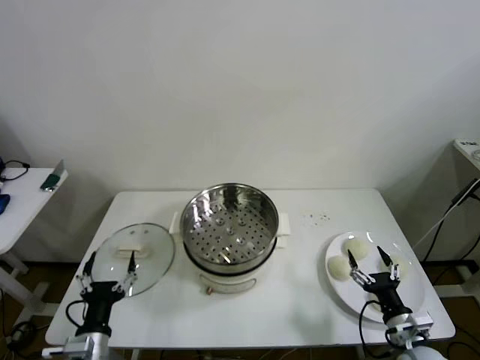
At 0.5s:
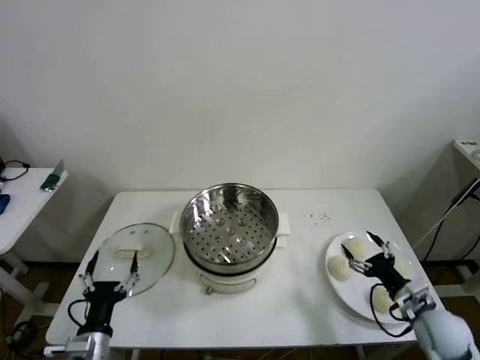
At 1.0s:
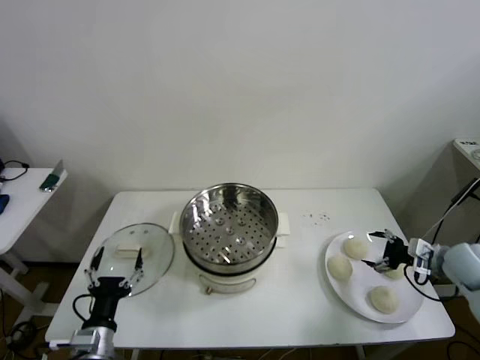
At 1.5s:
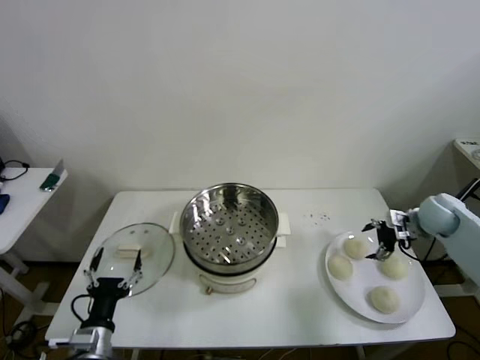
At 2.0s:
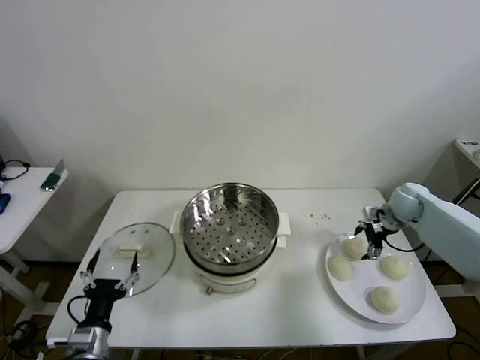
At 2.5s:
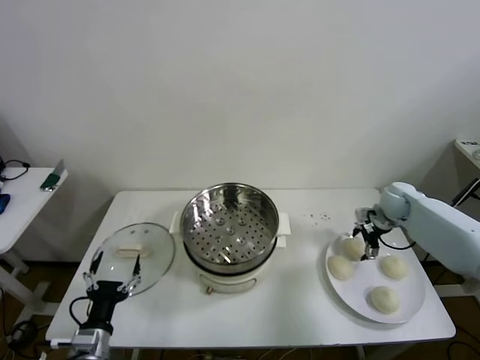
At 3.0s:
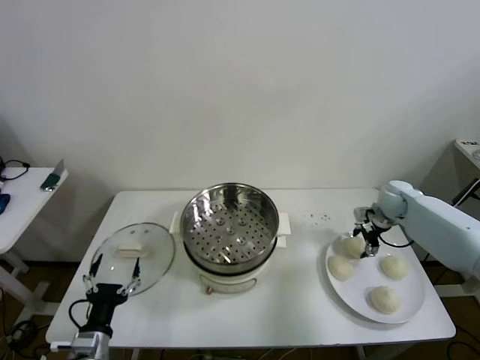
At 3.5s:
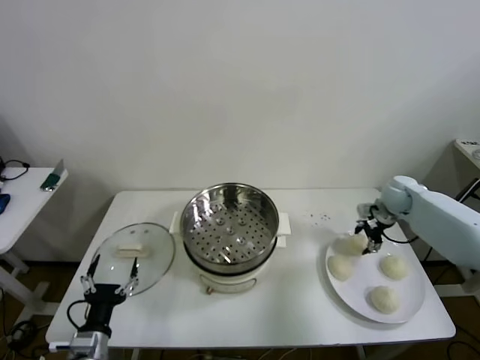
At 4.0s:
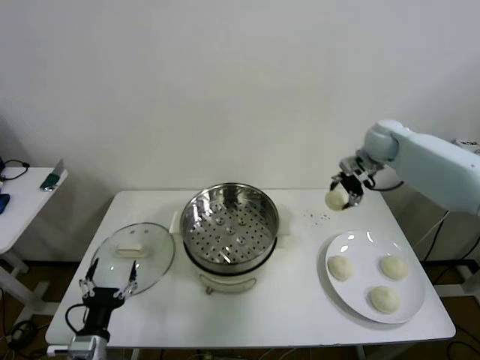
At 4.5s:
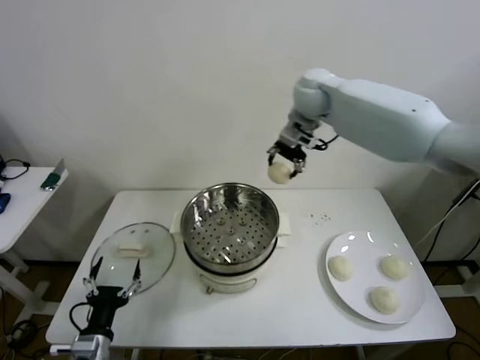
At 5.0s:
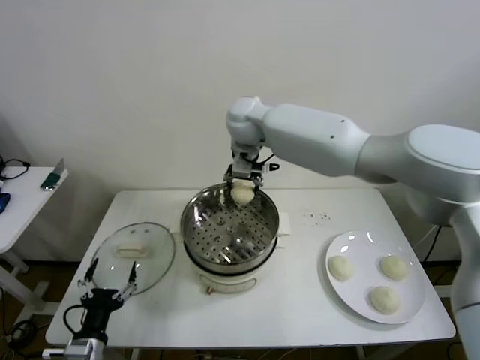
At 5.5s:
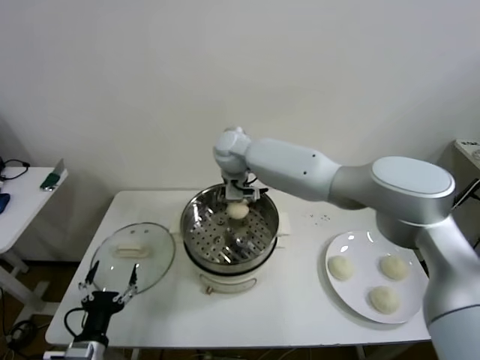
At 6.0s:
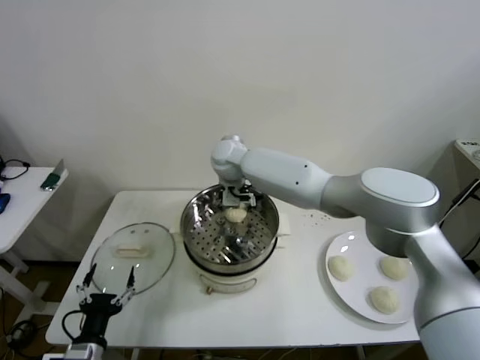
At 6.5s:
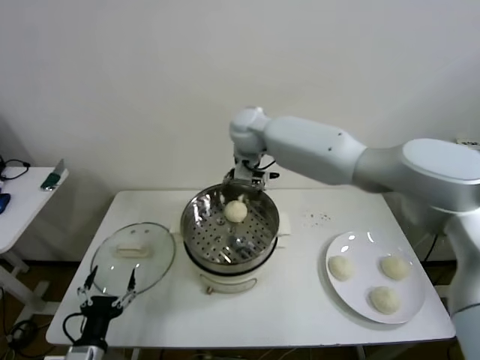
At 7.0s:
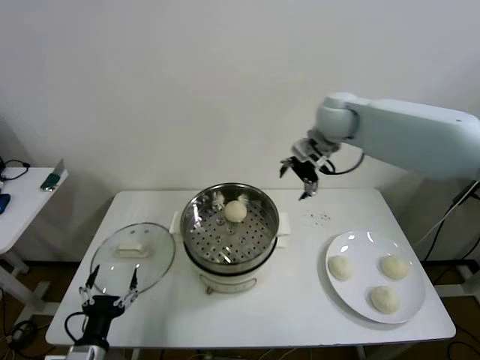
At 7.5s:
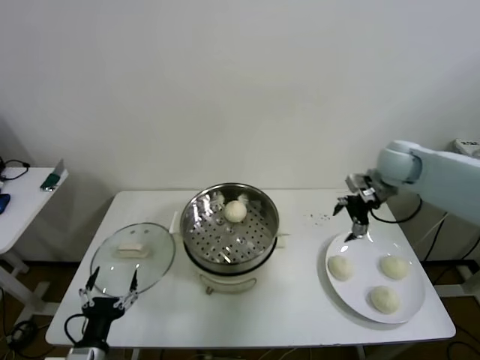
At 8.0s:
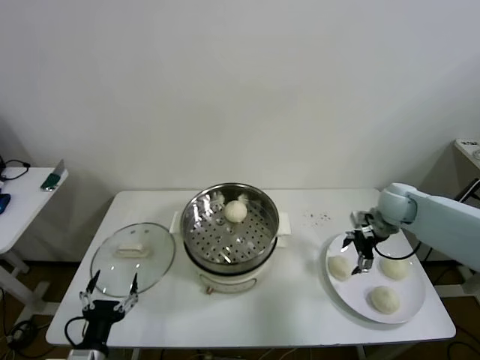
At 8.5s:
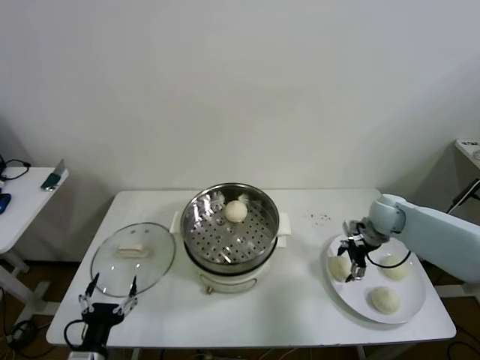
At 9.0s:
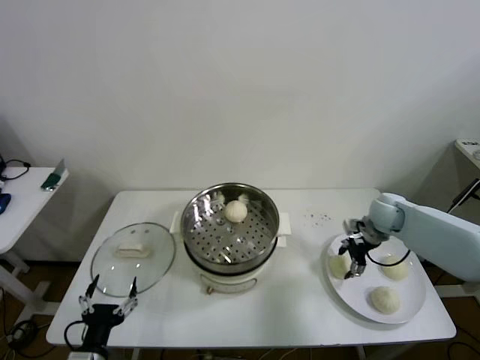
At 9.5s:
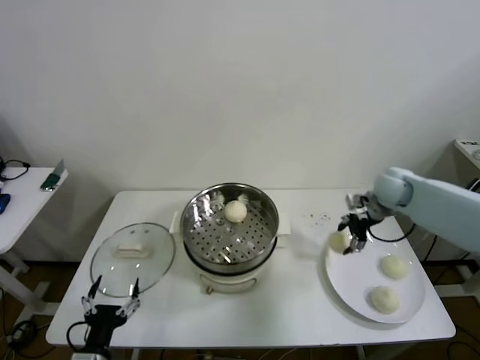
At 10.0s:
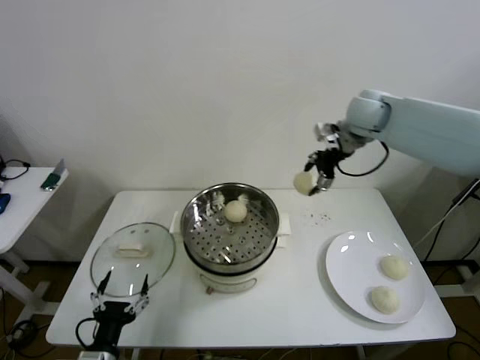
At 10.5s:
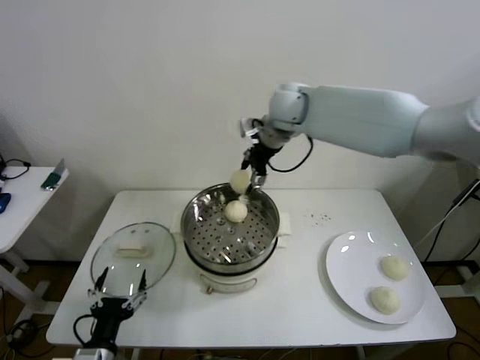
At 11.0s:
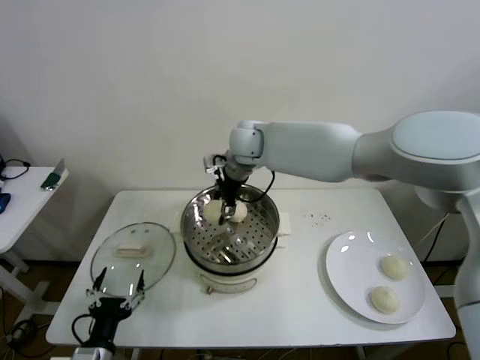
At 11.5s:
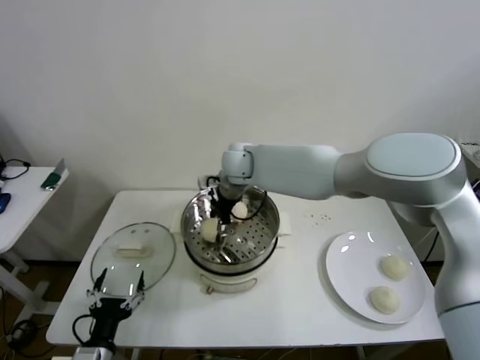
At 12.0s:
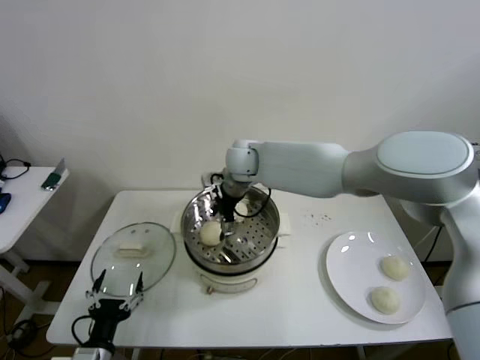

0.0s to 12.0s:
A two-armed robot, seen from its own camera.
Step, 0.0s to 3.0s: Grasp the baozi in the plate with right gripper.
Step, 3.5s to 6.0s: Place the baozi on the steamer with right gripper.
Step, 7.0s to 9.0s: Grasp the baozi in the plate with right gripper.
2.0s to 4.0s: The right gripper heads upward, to the left and forward, covering about 25 cm, and closes its fingers.
4.0s to 6.0s: The right gripper travels to the left by some 35 cm, and opens its fingers.
6.0s to 8.0s: The right gripper shifts roughly 40 cm to the right.
8.0s to 10.0s: The right gripper heads upward and to the left, covering some 25 cm, and closes its fingers.
10.0s to 12.0s: The right gripper moves to the left and downward, approximately 25 cm, and opens.

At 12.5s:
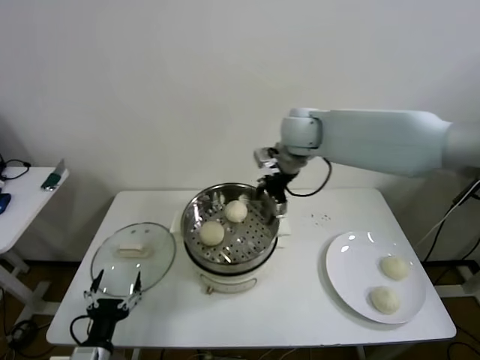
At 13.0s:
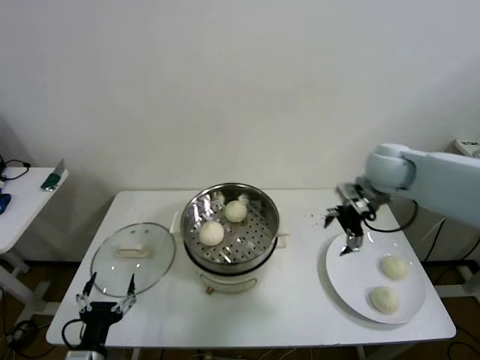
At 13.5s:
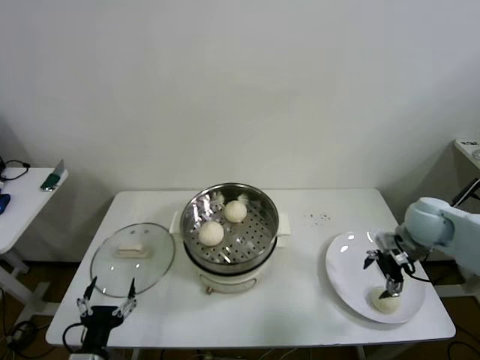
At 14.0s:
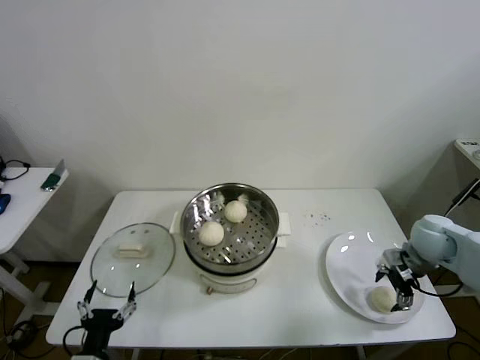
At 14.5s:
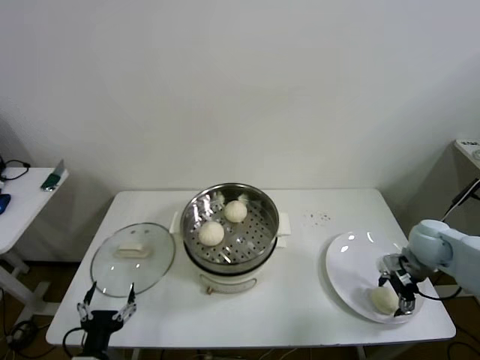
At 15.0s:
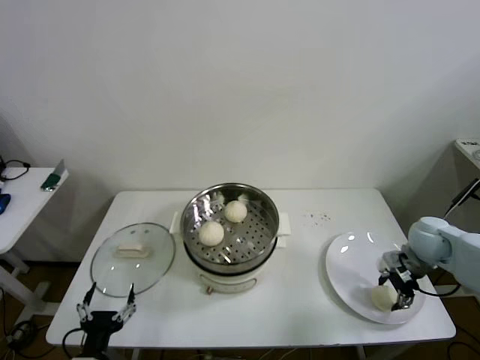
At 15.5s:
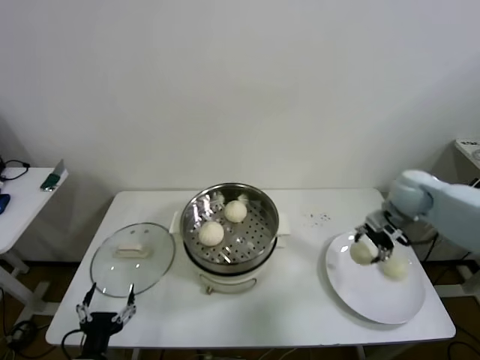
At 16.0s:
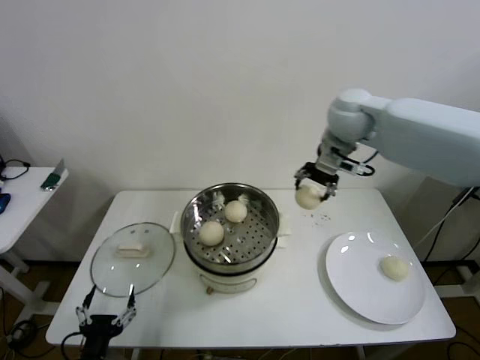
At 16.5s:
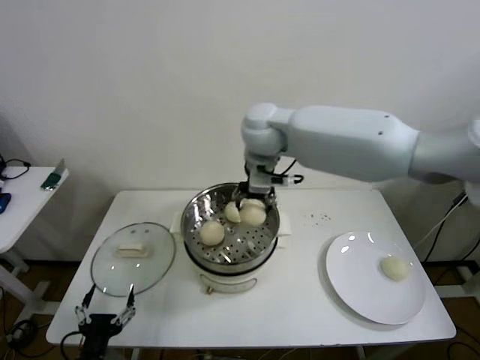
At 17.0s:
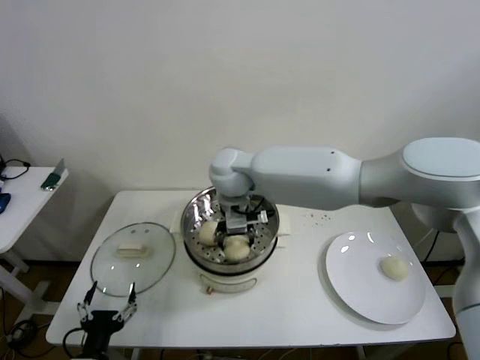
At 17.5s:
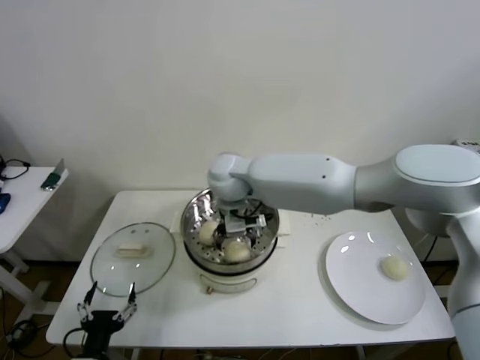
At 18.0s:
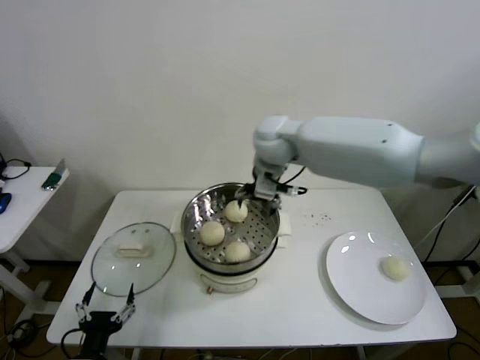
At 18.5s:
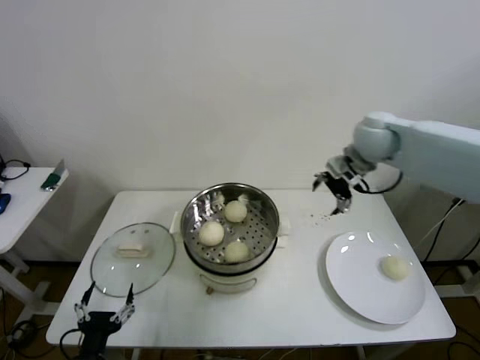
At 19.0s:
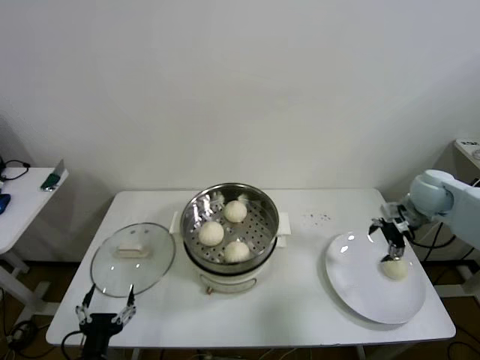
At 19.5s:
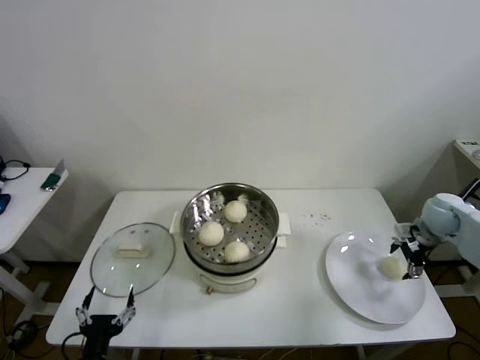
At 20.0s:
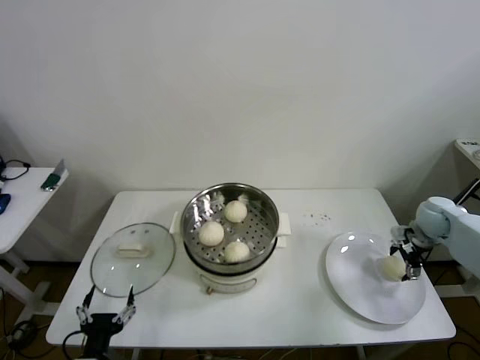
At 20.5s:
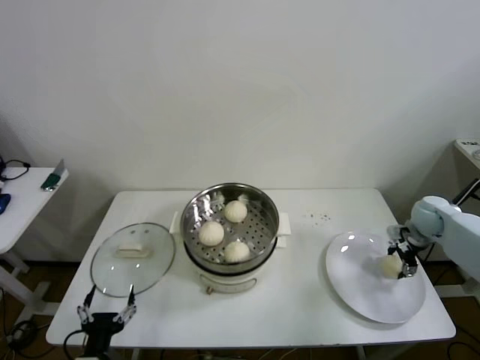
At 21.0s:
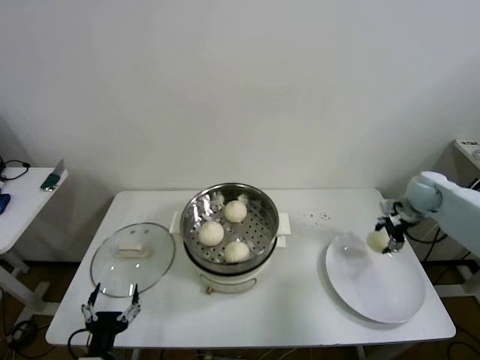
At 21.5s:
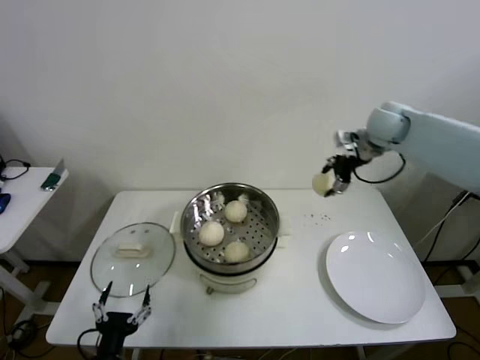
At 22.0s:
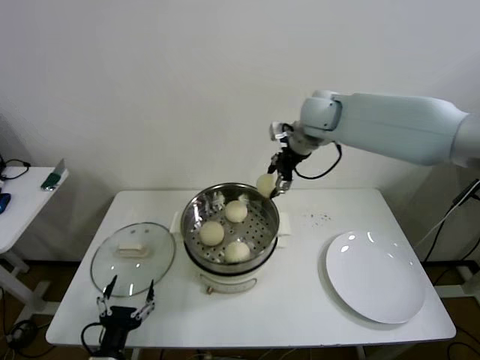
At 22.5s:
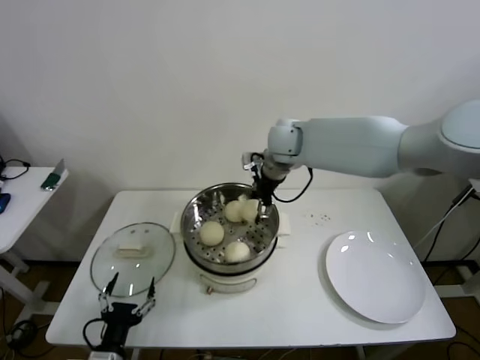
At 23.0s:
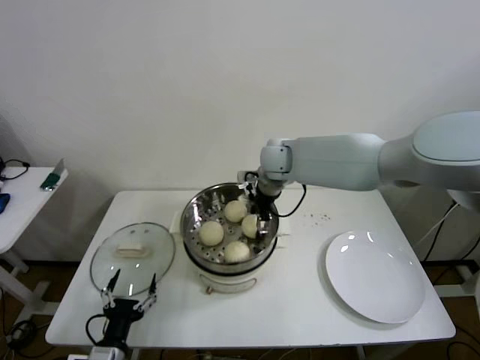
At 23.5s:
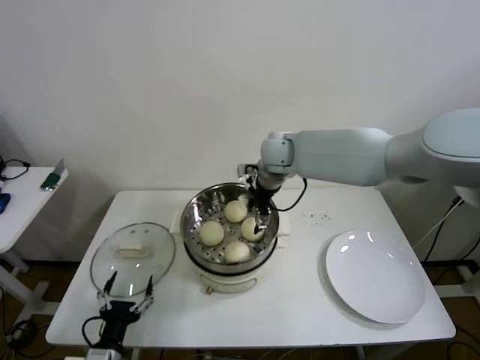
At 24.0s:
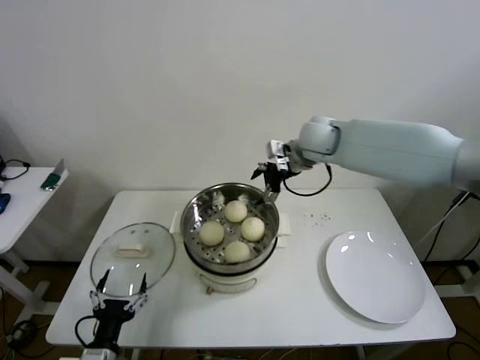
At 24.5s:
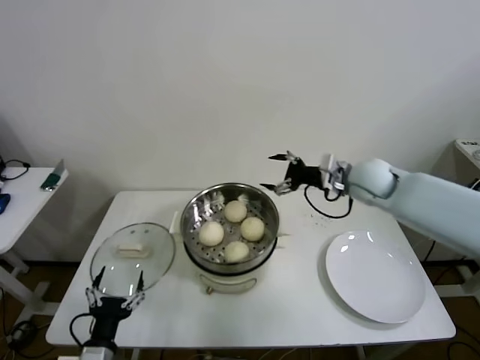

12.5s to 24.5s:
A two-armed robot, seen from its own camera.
Step, 12.5s to 14.5s: Grasp the baozi in the plate with right gripper.
Step, 15.0s to 17.5s: Place the baozi on the steamer with right gripper.
Step, 18.0s to 20.5s: Grasp the baozi in the plate with right gripper.
Step, 21.0s to 23.5s: Place the baozi on the steamer with right gripper.
12.5s to 14.5s: The right gripper shifts about 40 cm to the right, downward and backward.
14.5s to 16.5s: The right gripper moves to the left and upward, some 50 cm, and closes up.
16.5s to 18.5s: The right gripper moves to the right, about 25 cm, and opens its fingers.
18.5s to 20.5s: The right gripper heads downward and to the right, covering approximately 30 cm, and closes up.
20.5s to 22.5s: The right gripper travels to the left and upward by about 40 cm.
22.5s to 24.5s: The right gripper moves to the right, approximately 20 cm, and opens its fingers.

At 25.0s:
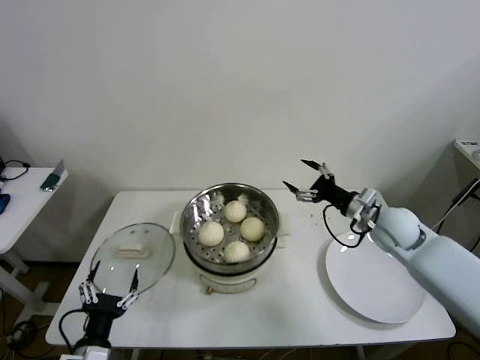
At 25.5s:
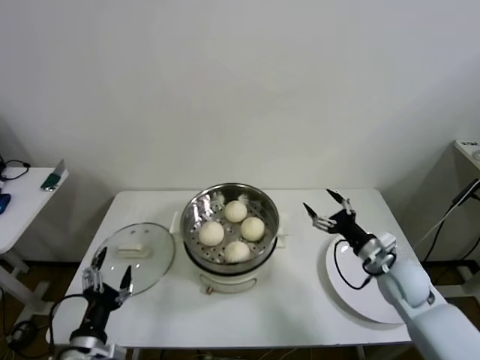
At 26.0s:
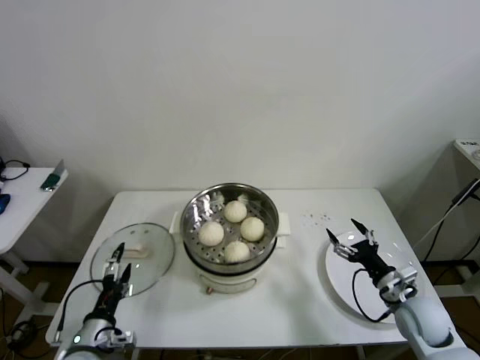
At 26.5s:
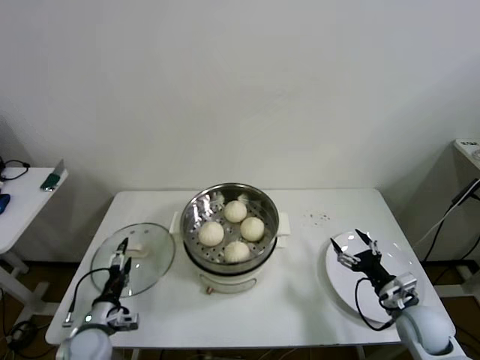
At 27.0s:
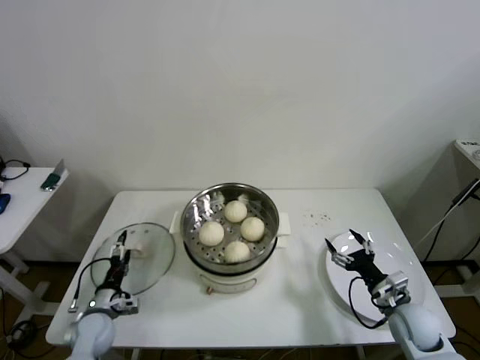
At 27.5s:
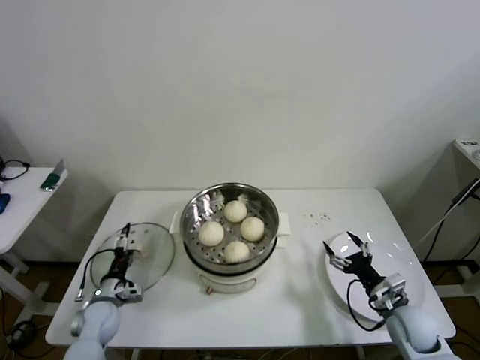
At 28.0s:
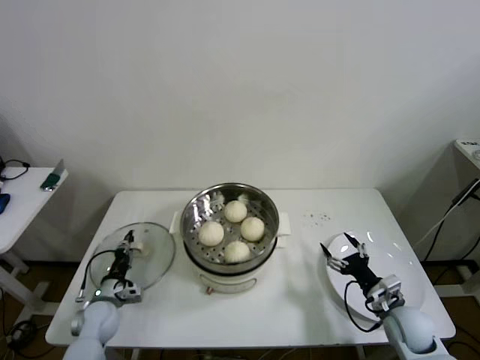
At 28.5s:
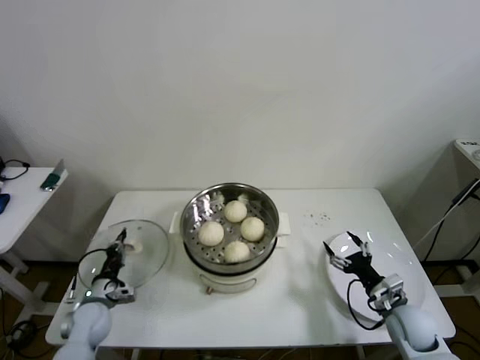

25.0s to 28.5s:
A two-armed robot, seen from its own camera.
Step, 25.0s to 28.0s: Grasp the pot lid with left gripper.
25.0s to 27.0s: The left gripper is displaced forward, downward and to the left by some 20 cm. Meanwhile the right gripper is displaced downward and backward by some 20 cm.
27.0s to 28.5s: The left gripper closes up.
